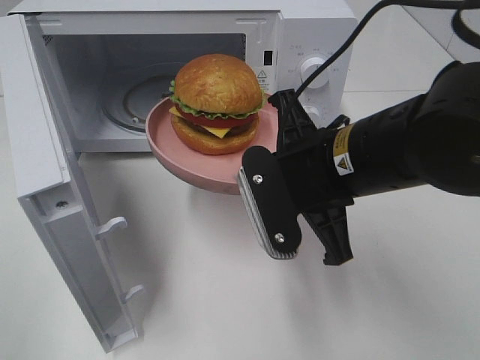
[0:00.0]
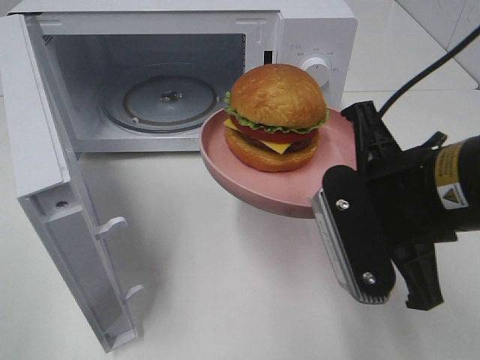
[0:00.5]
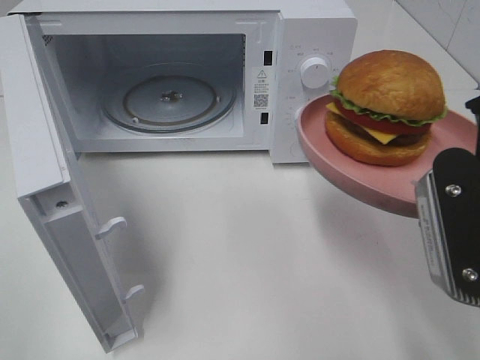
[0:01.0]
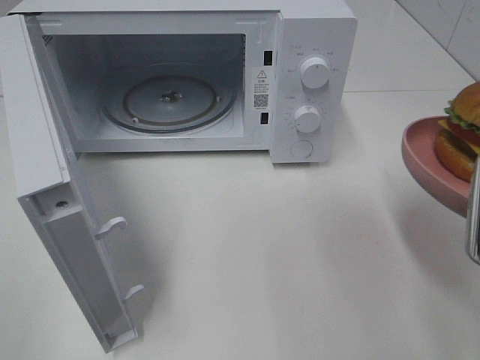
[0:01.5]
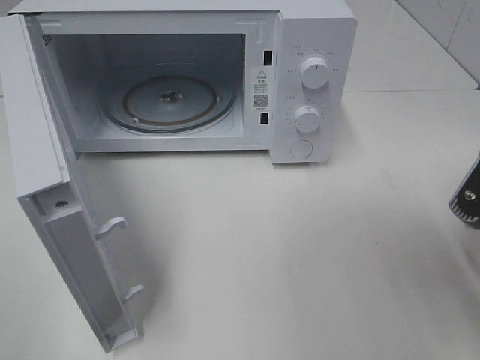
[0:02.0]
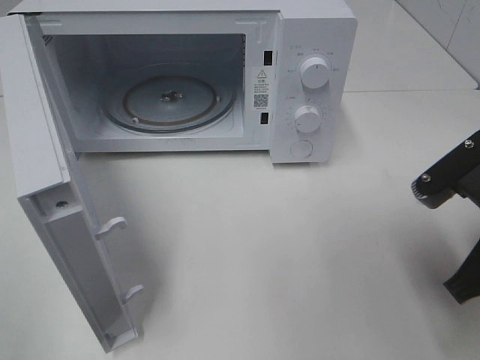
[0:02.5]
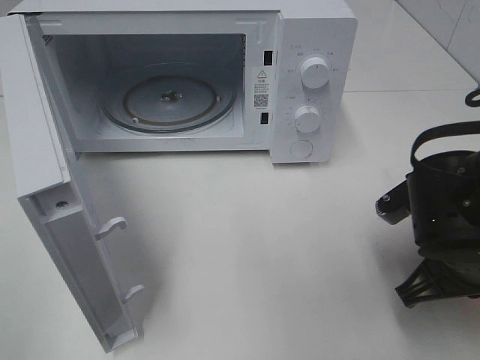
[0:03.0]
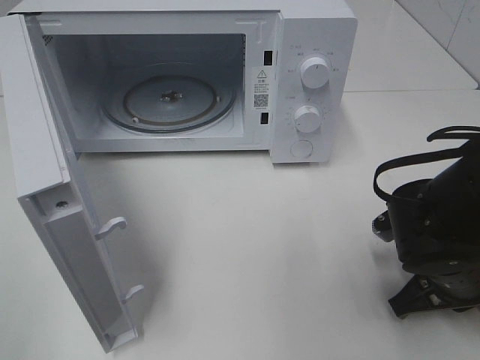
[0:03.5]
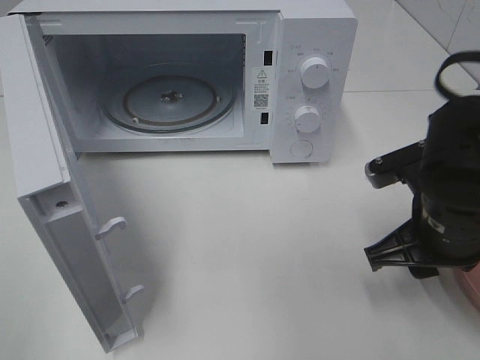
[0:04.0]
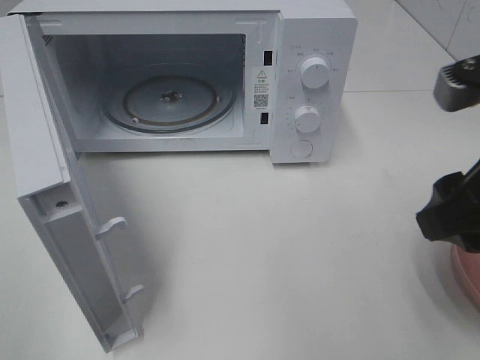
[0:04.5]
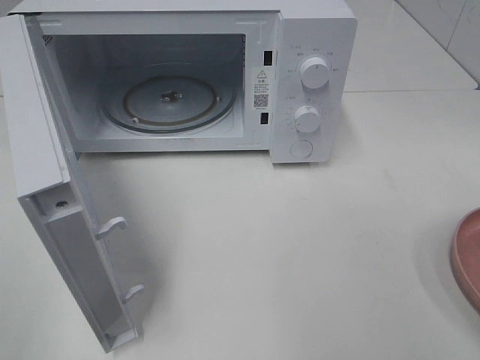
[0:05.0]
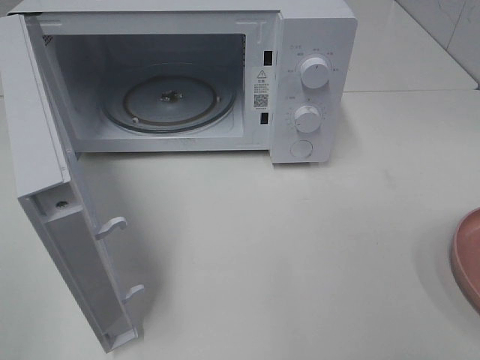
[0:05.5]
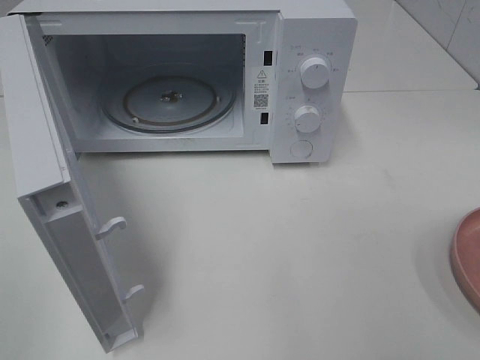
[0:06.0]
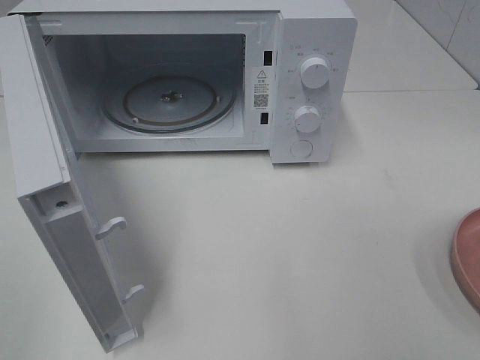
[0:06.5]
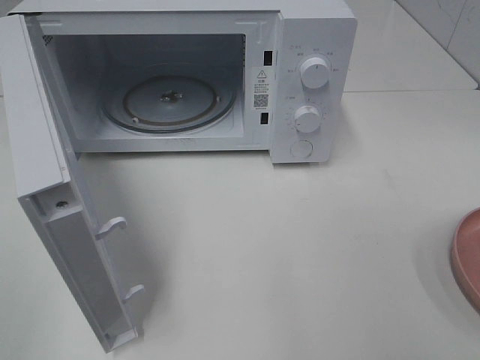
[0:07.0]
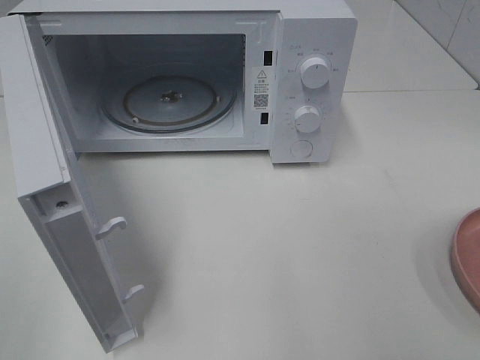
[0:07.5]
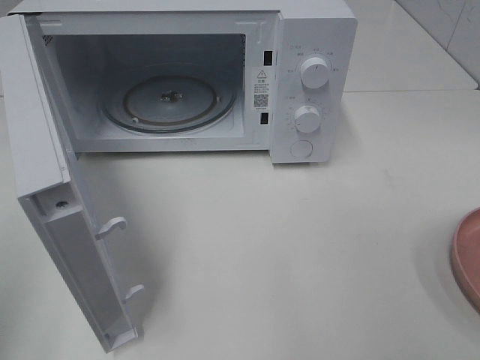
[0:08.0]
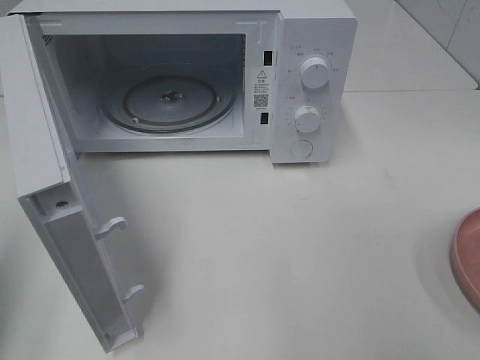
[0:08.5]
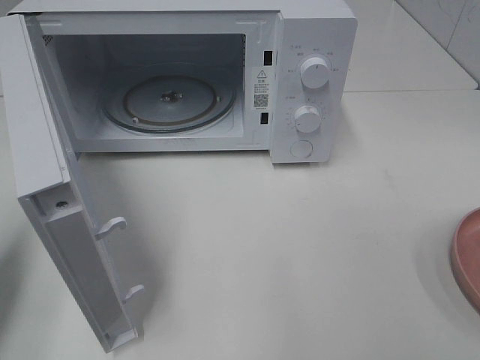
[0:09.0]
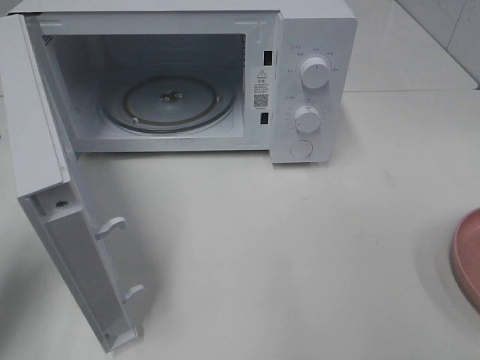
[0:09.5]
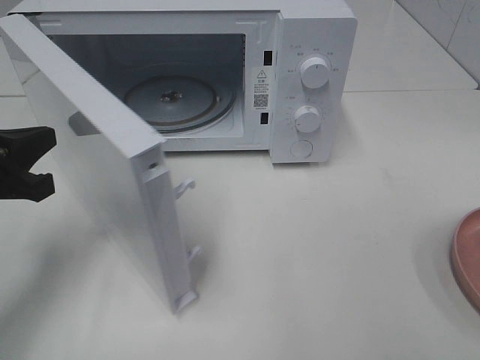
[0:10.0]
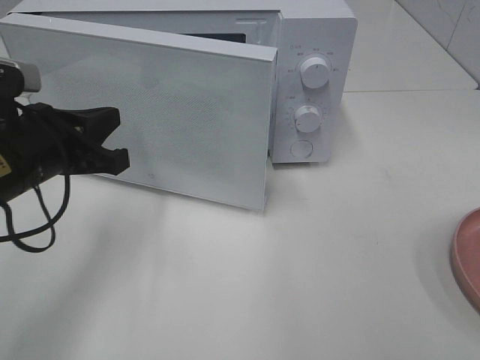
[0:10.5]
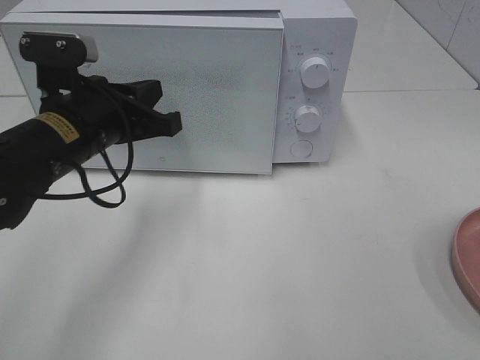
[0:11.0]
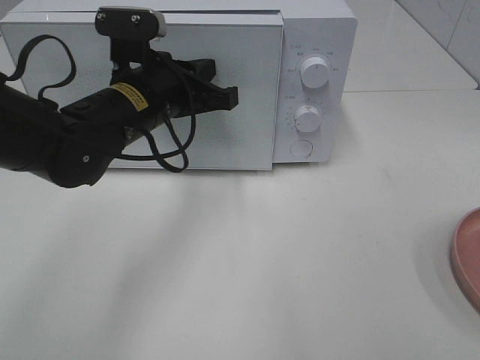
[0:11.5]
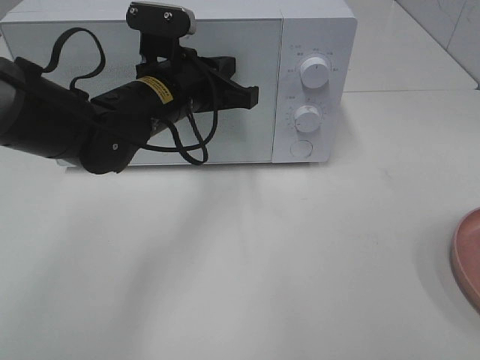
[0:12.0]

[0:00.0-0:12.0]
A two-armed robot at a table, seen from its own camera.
Task of the whole recording: Heat the burger.
Step, 0:00.0 to 0:03.5: Right hand: place the plate on the table.
0:00.0 to 0:02.0: The right gripper moves to the right and backward, about 15 cm.
0:02.0 to 0:04.0: The right gripper goes some 10 cm downward and forward, and opens its fingers.
0:04.0 to 0:06.0: The right gripper goes some 30 cm backward, upward and to the right.
0:08.0 to 0:10.0: The left gripper is displaced forward, downward and to the right by approximately 25 cm.
0:10.0 to 0:12.0: The left gripper is displaced to the right and forward by roughly 20 cm.

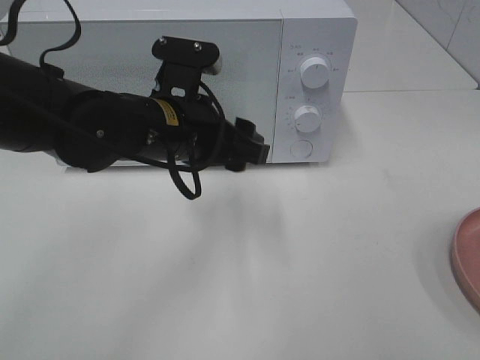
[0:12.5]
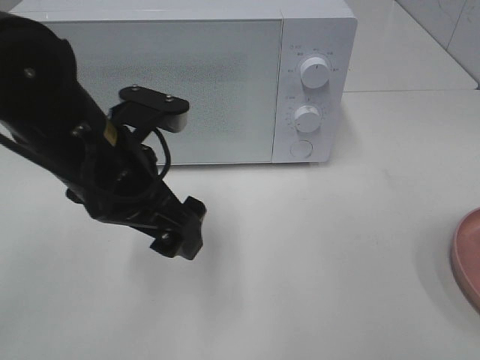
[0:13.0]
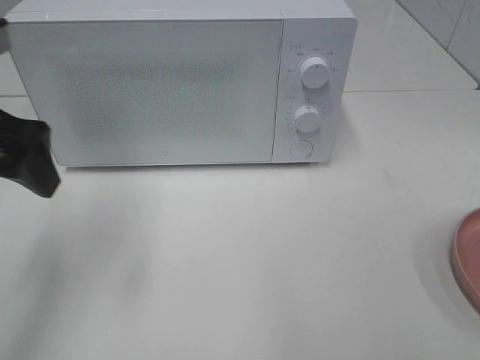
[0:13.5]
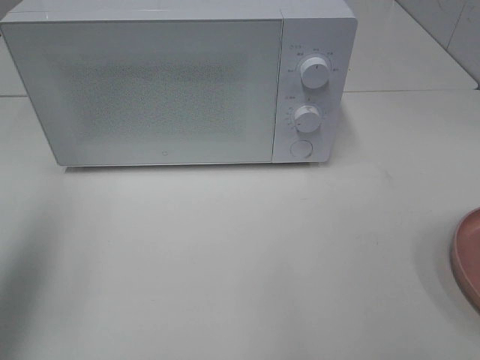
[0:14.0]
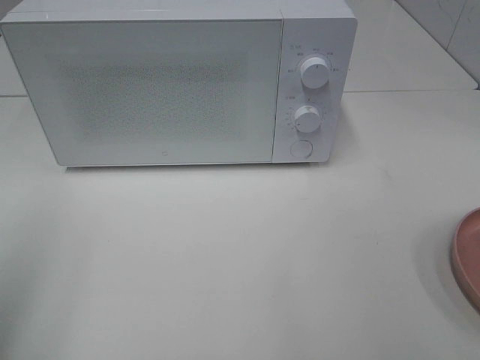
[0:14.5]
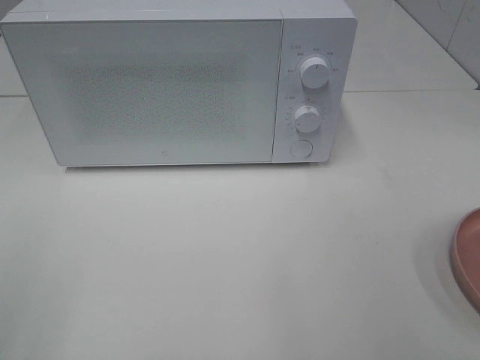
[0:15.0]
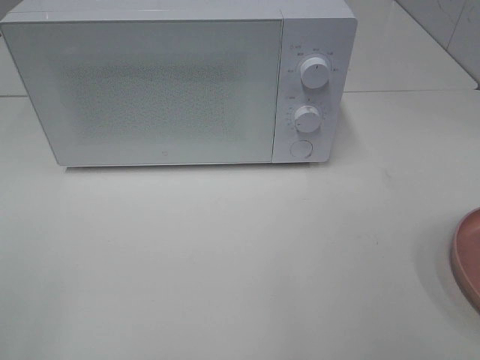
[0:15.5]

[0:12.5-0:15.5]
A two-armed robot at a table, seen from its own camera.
Task of the whole recording: Heat the burger.
0:12.5 to 0:14.0: The left gripper is displaced to the left and upward by about 30 cm, and opens its fingers.
0:14.0 to 0:15.5: The left gripper travels backward by some 20 cm.

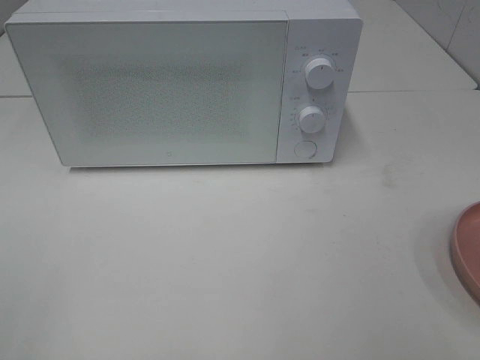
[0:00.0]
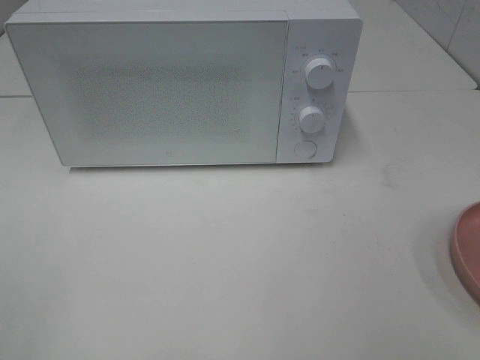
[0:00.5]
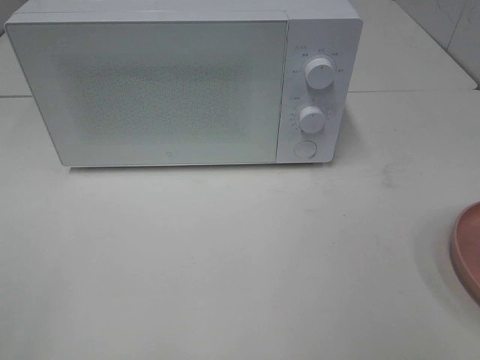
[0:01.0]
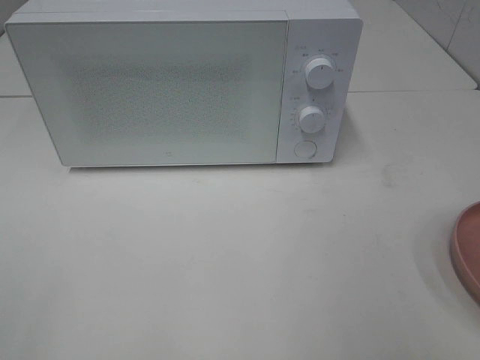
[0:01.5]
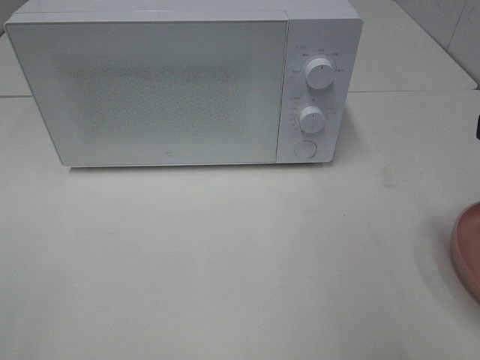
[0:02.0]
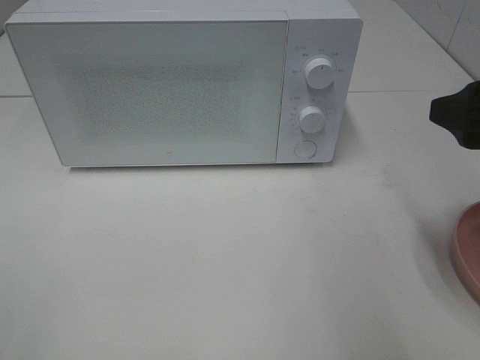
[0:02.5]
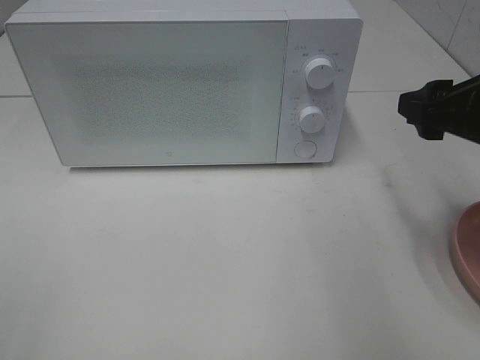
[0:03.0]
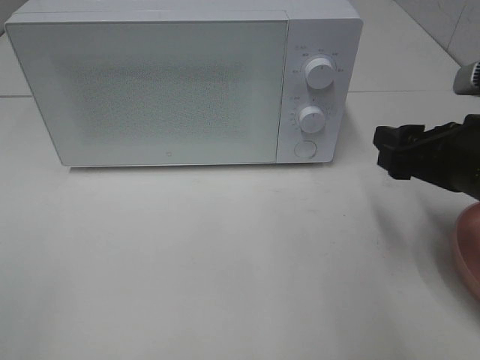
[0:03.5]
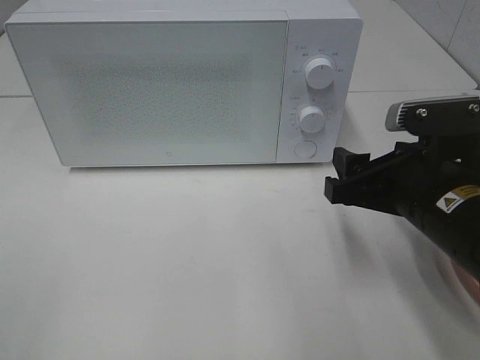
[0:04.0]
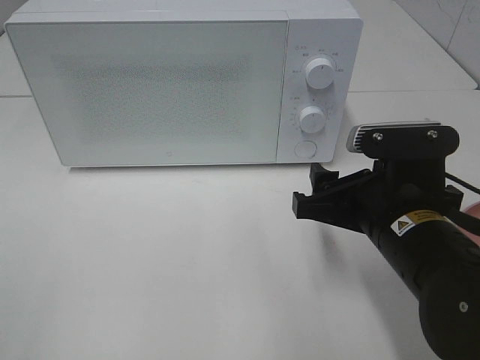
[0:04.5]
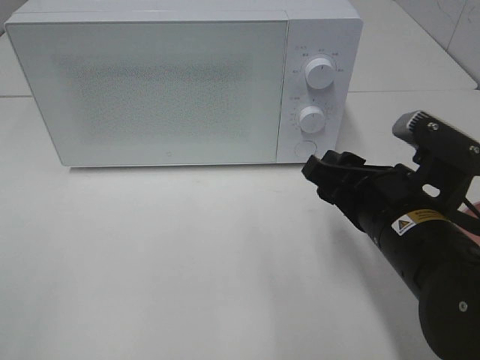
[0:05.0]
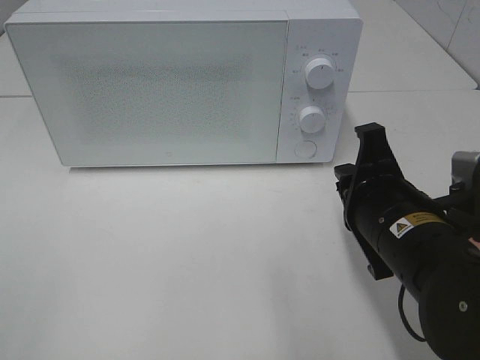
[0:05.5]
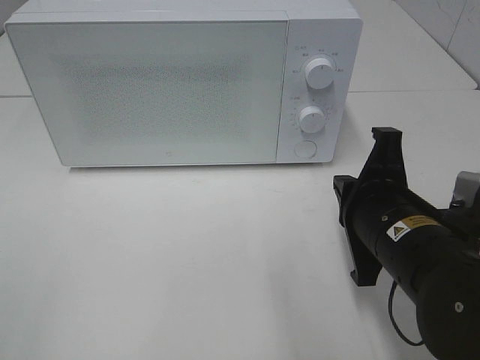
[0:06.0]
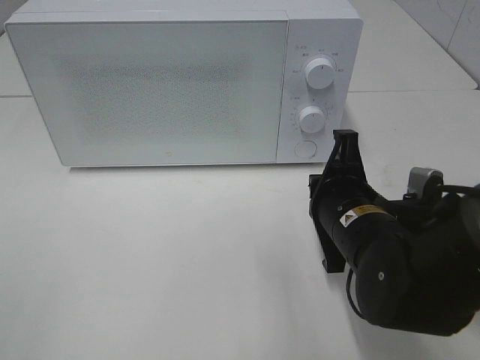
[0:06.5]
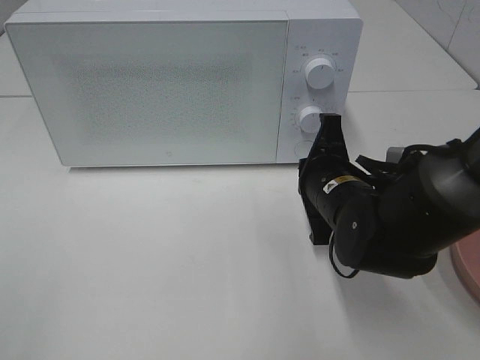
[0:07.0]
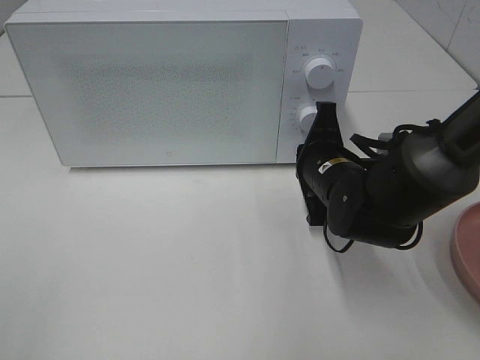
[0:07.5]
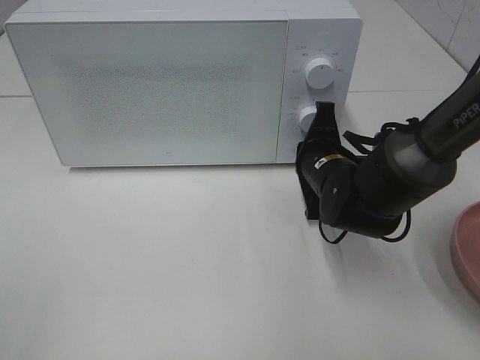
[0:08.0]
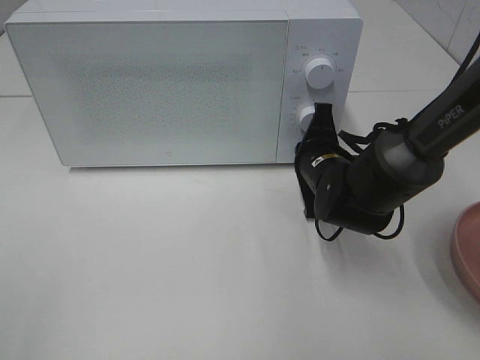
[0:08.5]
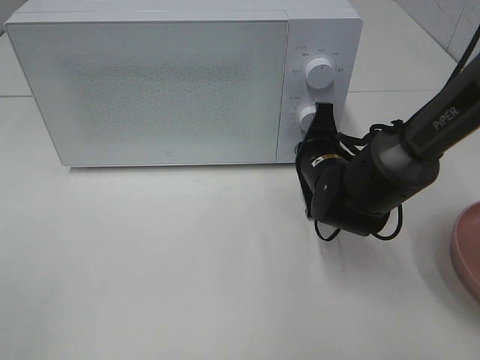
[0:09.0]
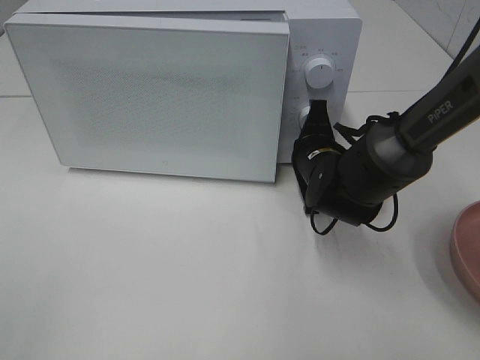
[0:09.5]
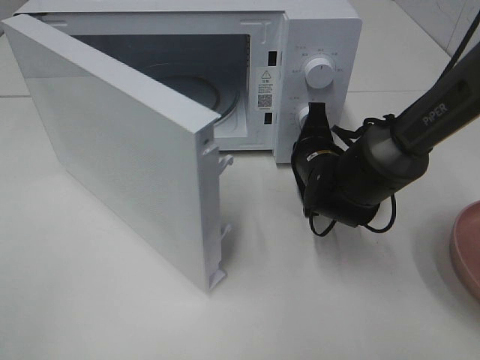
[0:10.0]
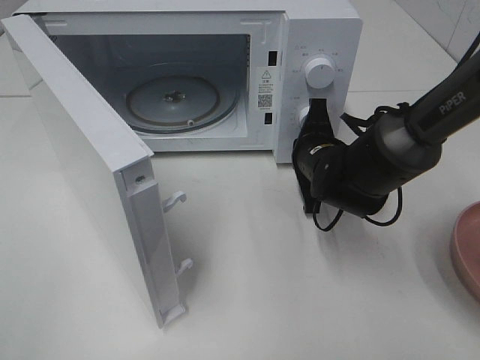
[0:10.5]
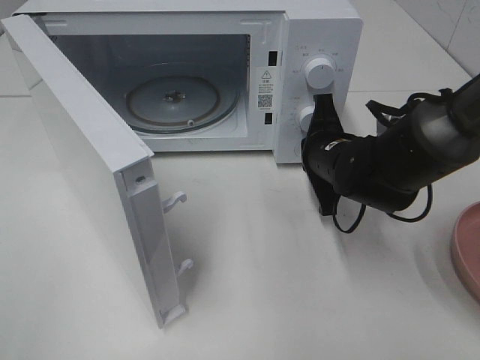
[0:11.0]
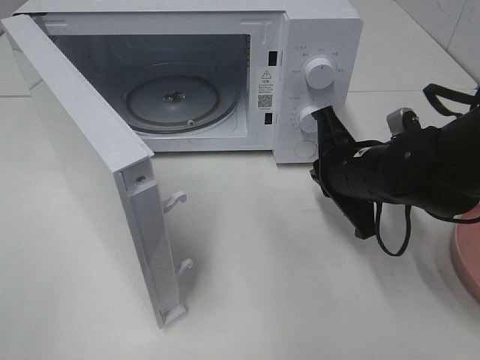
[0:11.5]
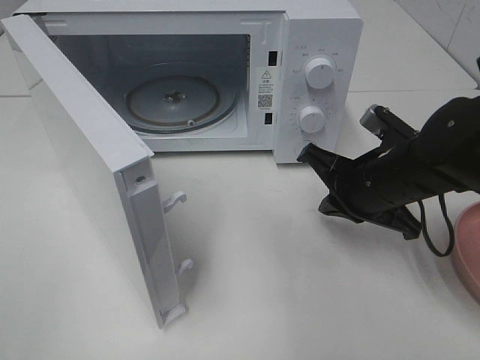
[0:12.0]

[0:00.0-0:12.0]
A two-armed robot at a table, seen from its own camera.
Task of the whole recording: Heat the burger.
Step, 0:00.0 to 0:10.5: Right hand: press the switch.
0:02.0 to 0:04.0: The right gripper is displaced downward, to the left and forward by approximately 15 cm.
0:04.0 to 0:06.0: The right gripper closes.
0:06.0 to 0:08.0: The right gripper travels forward by some 15 cm.
0:10.0 to 0:12.0: The right gripper goes roughly 10 cm backward and upward.
